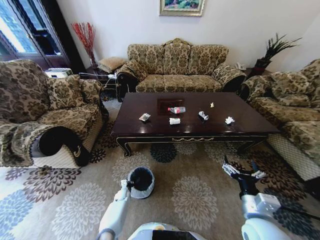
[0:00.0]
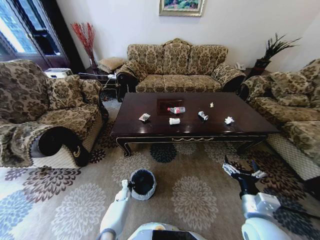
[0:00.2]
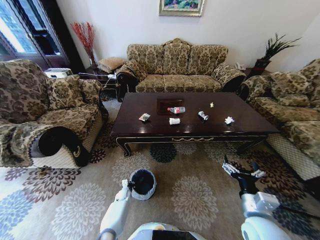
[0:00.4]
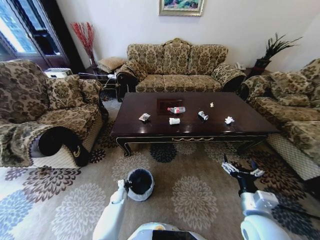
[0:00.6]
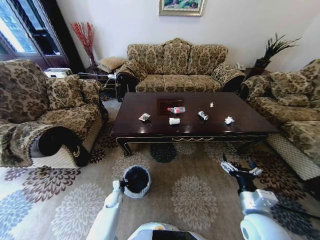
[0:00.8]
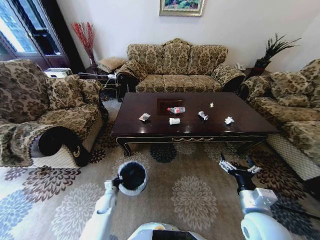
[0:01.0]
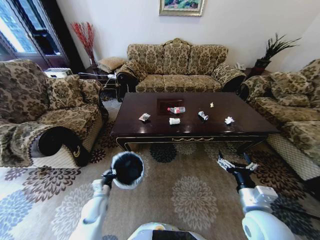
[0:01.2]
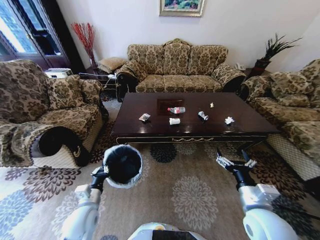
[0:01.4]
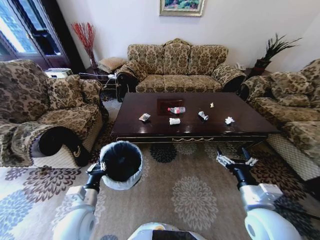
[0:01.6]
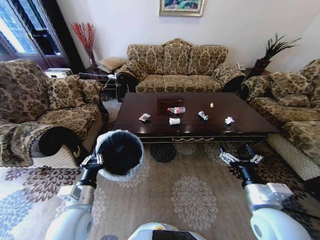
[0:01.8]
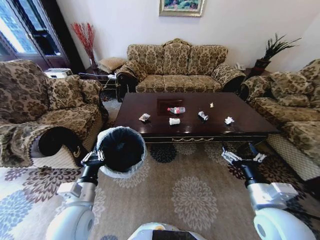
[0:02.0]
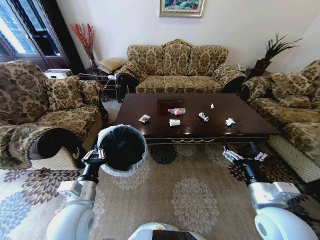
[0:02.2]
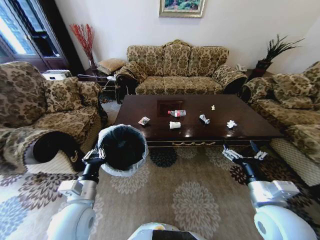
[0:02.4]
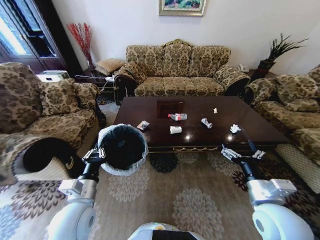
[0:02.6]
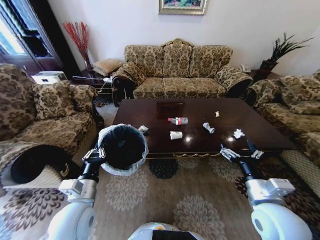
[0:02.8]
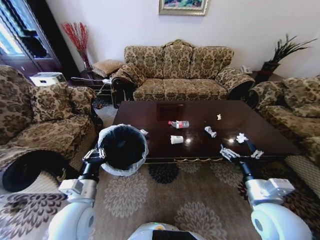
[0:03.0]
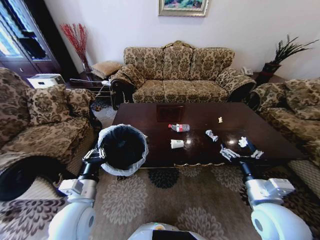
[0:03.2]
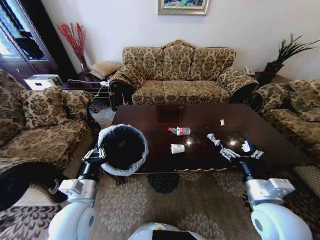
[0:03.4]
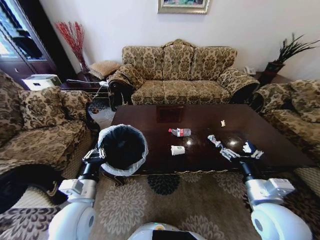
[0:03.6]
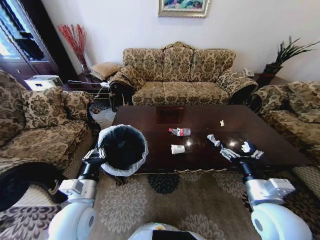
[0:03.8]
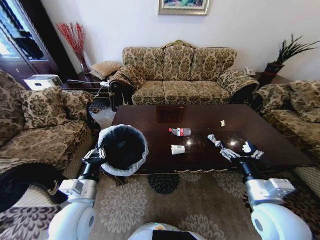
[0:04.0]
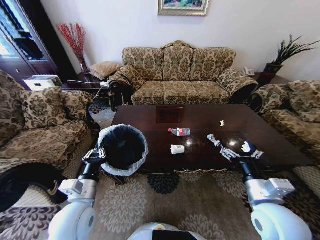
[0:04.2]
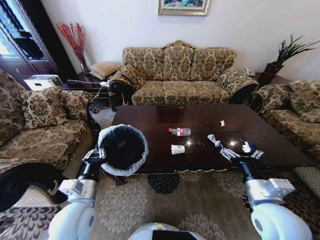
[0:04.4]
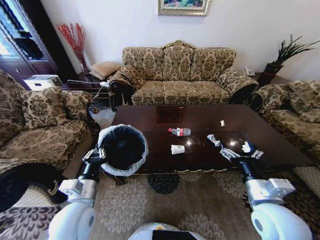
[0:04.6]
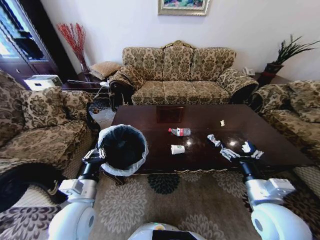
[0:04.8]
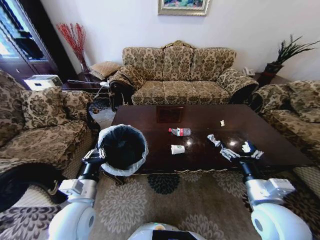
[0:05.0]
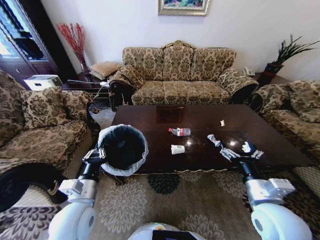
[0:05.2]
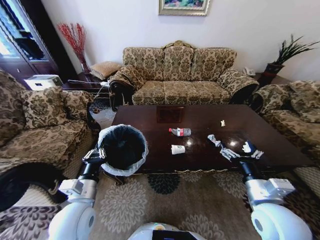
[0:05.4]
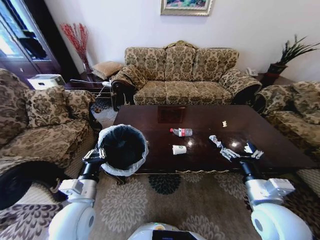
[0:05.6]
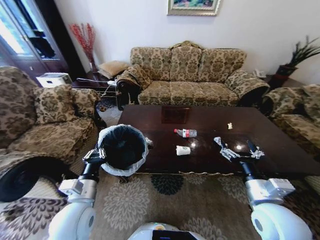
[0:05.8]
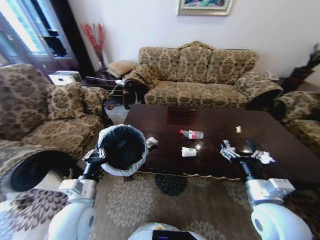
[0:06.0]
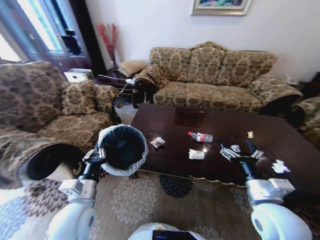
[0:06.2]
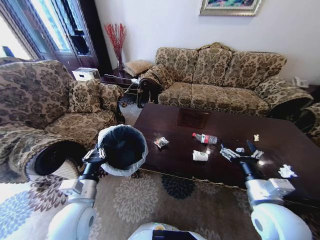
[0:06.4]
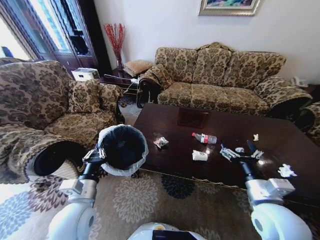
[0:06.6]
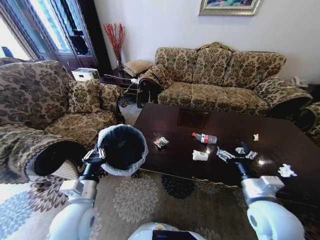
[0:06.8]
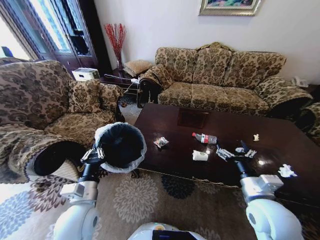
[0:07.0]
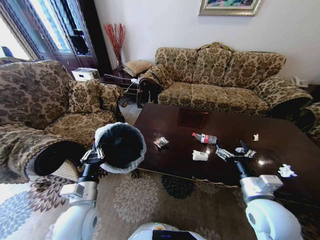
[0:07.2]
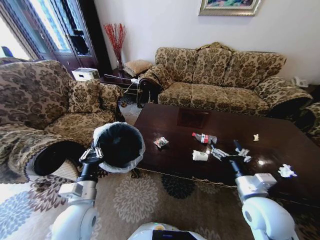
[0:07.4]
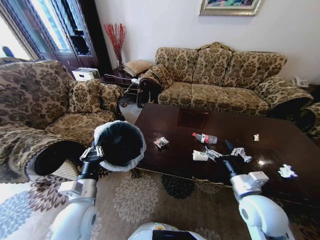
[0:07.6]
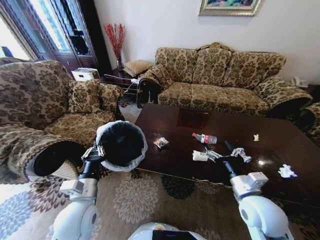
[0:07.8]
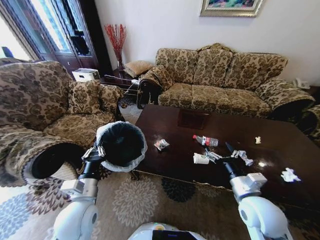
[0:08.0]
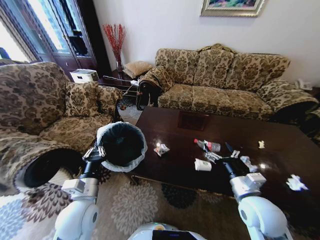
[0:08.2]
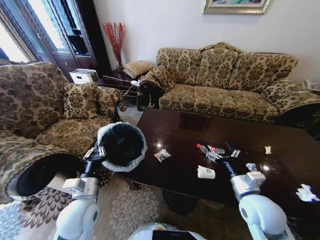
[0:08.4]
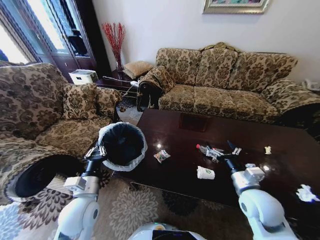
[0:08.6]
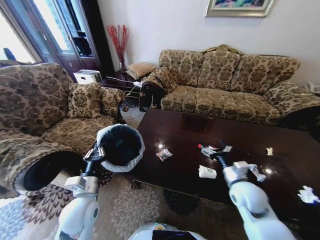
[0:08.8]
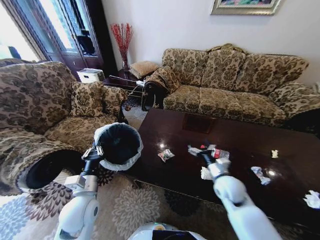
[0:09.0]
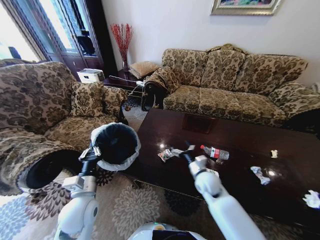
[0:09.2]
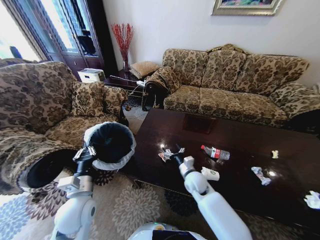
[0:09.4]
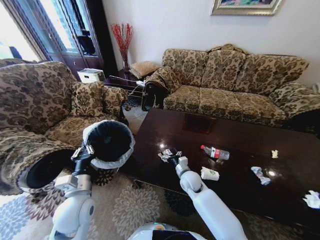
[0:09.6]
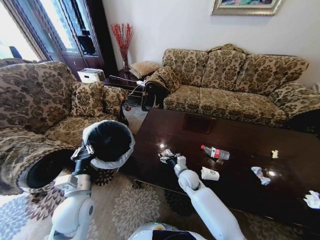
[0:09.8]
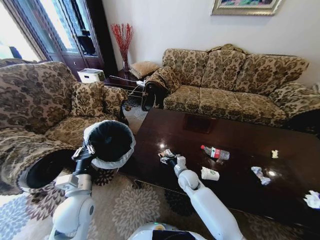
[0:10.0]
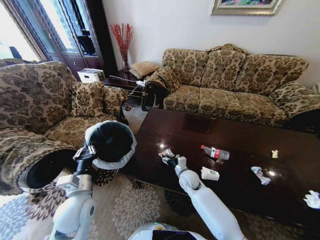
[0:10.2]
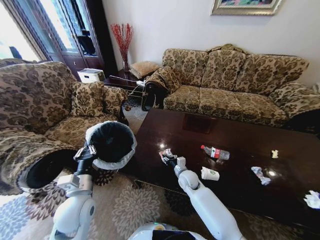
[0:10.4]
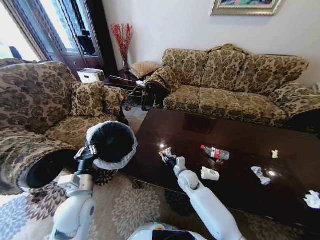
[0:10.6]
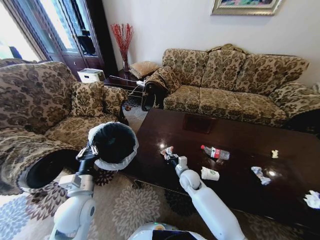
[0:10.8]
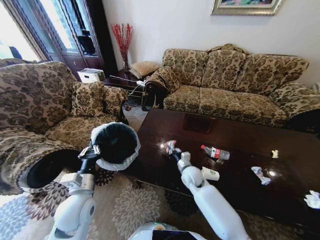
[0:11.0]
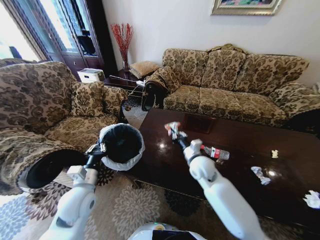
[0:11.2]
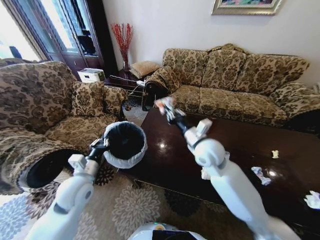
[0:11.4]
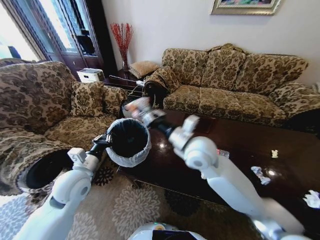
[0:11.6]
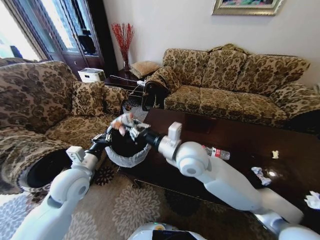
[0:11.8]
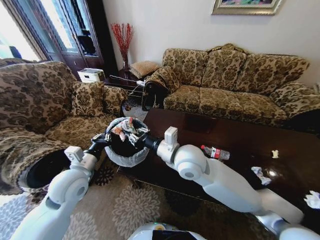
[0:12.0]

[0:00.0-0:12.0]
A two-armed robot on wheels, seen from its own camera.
Task of the whole recording: Move to the front of the table and place the trash on the table into the trash bin.
0:00.0 to 0:01.6: The left gripper travels upward and backward by roughly 40 cm.
0:01.6 to 0:03.0: The left gripper shifts some 5 cm upward.
0:07.6 to 0:09.0: The right gripper is displaced forward and downward by approximately 10 cm.
0:09.0 to 0:10.4: The right gripper heads to the left, downward and forward, covering roughly 20 cm, and closes its fingers.
0:10.4 to 0:12.0: The right gripper is displaced upward by roughly 25 cm, and closes; the left gripper travels upward and forward by about 10 cm.

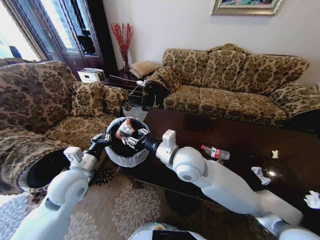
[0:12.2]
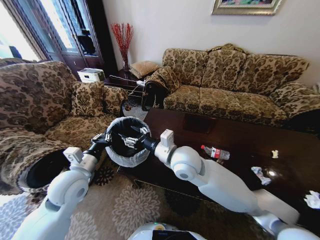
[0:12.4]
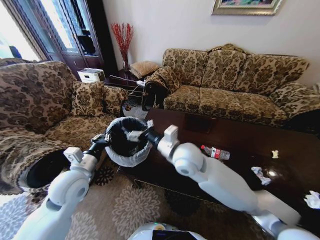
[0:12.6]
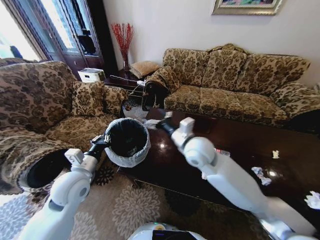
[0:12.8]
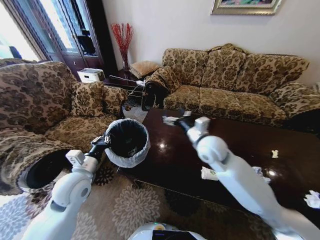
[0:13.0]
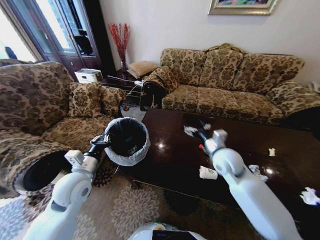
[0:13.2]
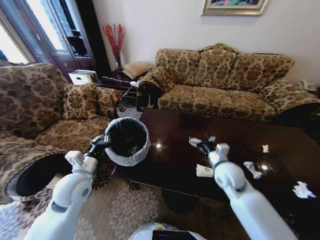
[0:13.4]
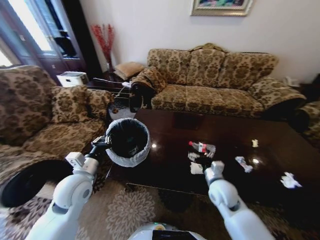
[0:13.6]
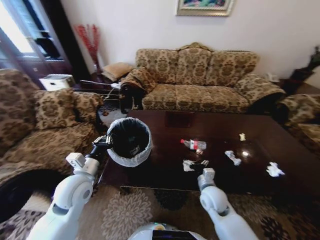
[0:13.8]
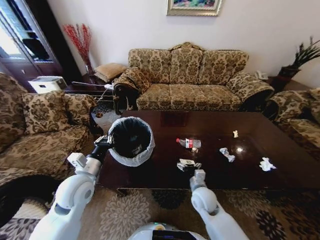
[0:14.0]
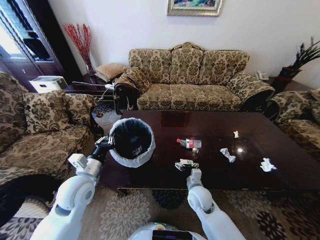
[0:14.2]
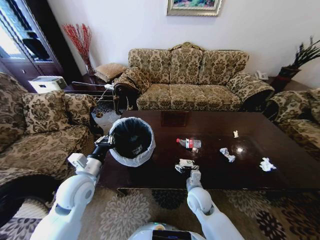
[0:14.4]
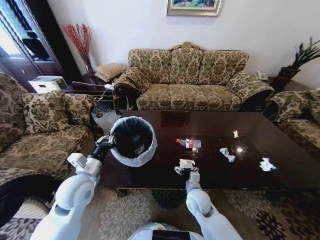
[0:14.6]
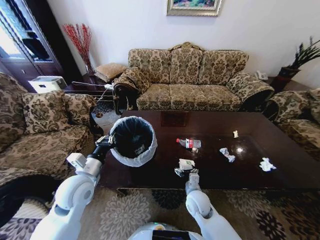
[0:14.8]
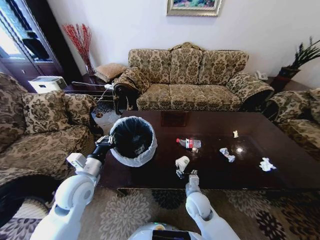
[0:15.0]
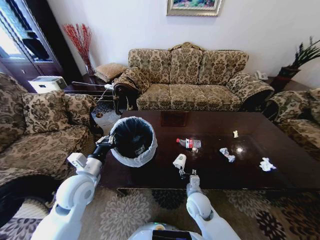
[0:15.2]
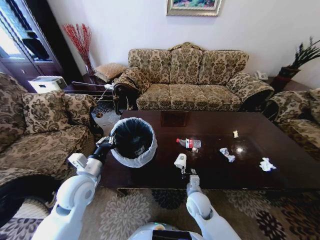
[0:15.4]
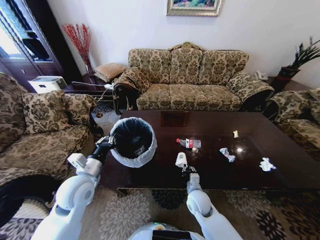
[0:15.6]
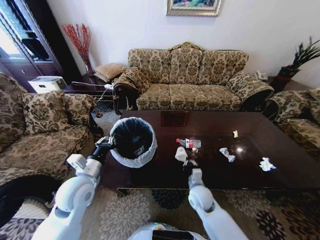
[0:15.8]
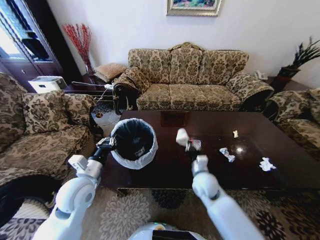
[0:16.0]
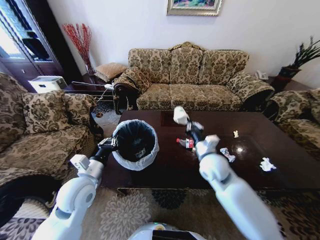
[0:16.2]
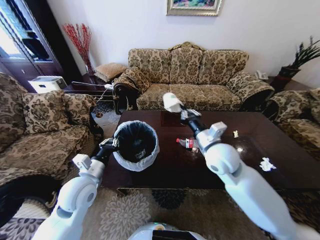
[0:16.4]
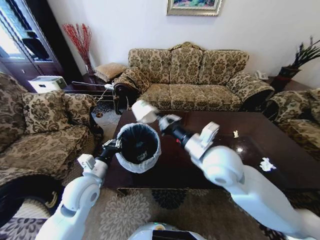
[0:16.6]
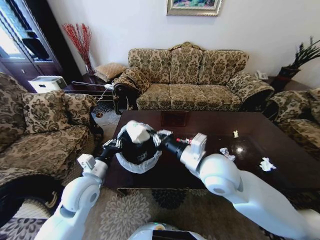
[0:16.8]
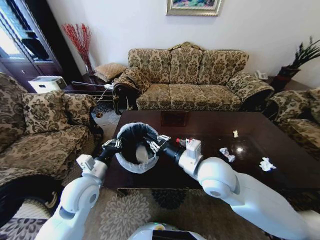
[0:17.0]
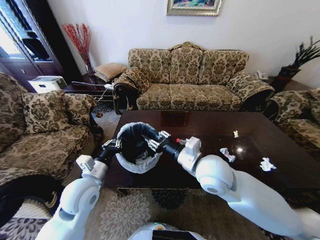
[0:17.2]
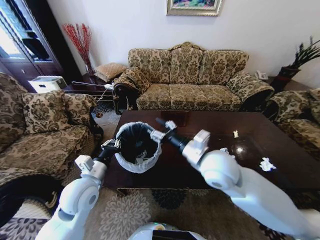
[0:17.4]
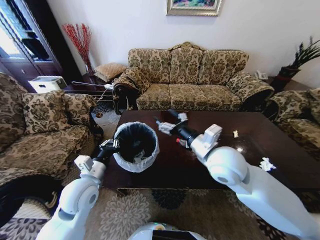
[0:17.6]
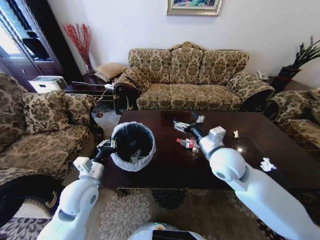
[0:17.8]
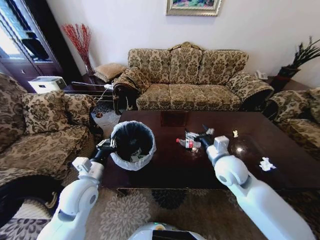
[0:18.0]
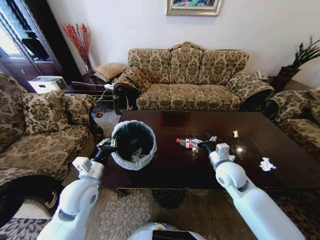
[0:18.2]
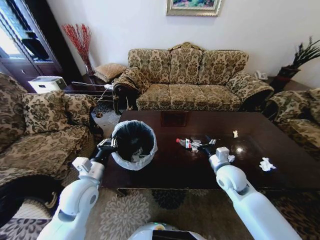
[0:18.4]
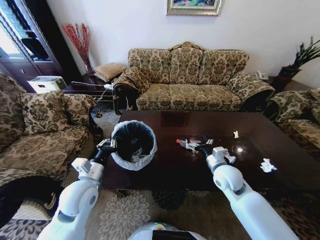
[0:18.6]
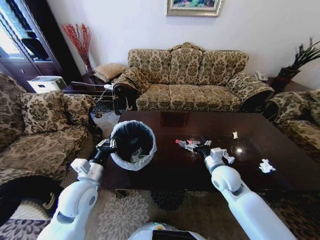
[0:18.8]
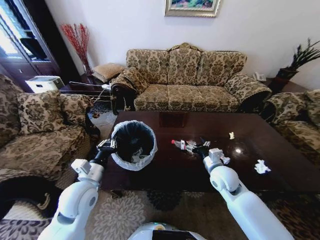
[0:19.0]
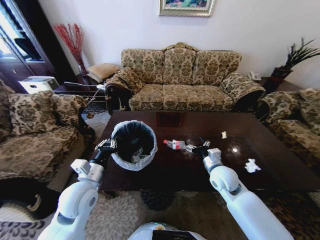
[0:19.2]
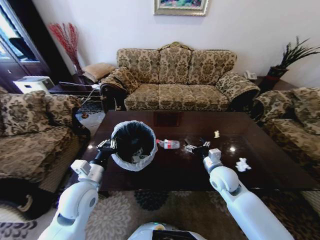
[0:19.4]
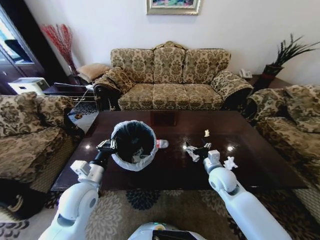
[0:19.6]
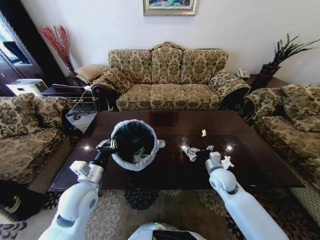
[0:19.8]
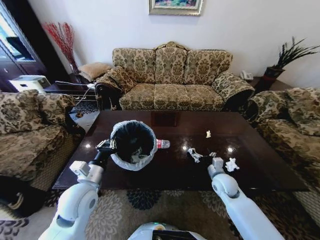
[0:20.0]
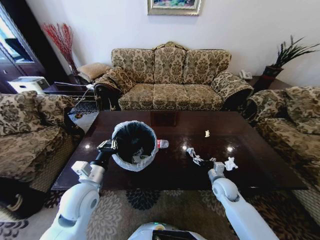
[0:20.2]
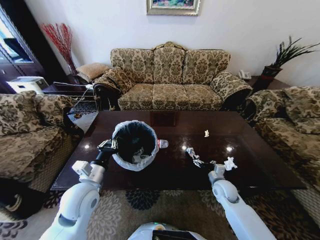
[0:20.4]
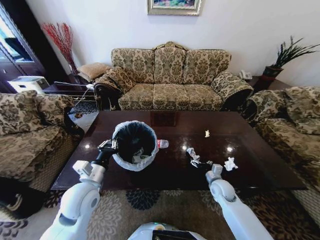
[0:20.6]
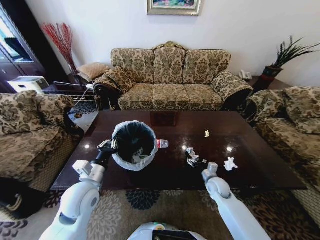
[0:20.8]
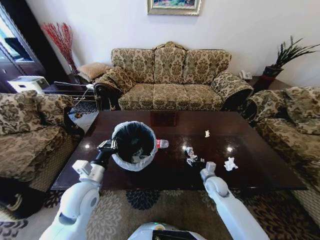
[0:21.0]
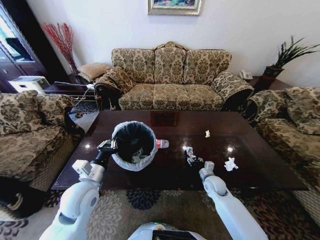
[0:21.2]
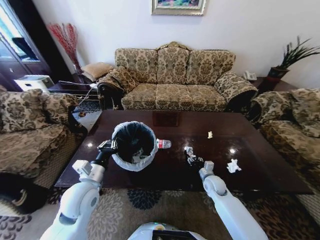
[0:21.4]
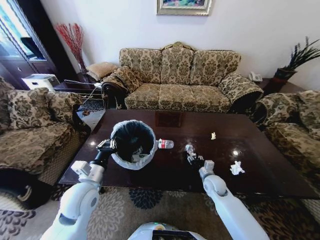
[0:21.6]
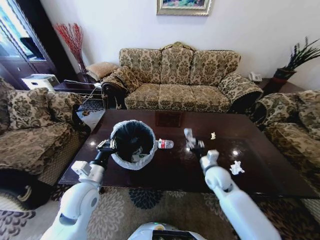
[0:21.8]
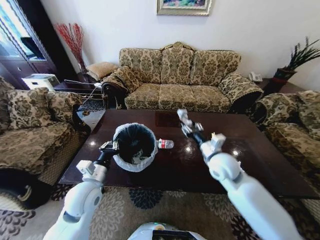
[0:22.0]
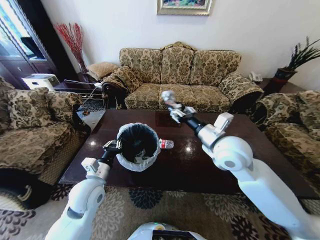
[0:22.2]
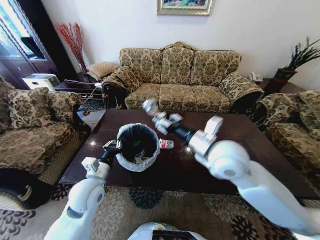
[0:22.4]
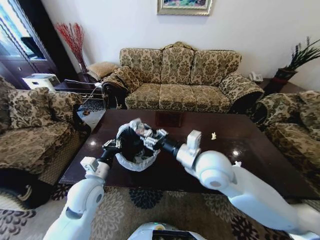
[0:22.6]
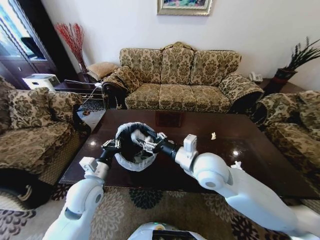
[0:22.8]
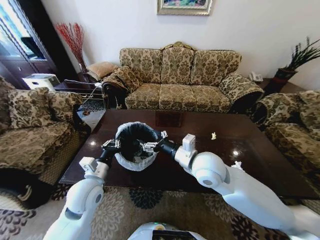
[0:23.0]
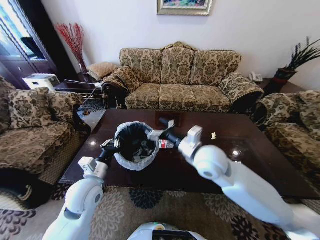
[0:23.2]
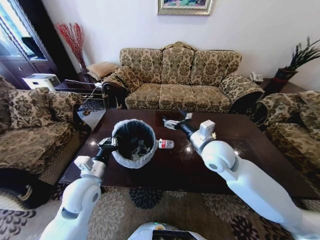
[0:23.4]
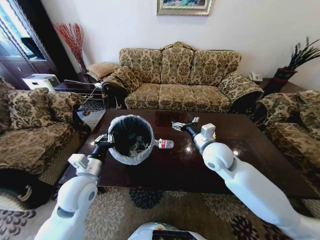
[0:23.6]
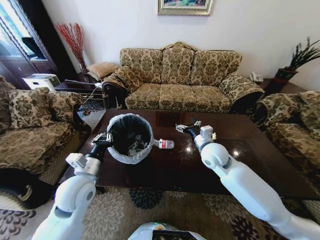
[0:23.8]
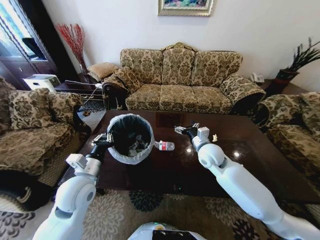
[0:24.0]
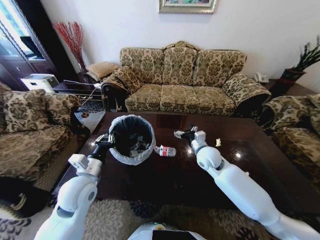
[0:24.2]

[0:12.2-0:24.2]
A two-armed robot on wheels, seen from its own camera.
Task of the whole recording: Move to the front of the table and place the trash on the table into the trash bin.
0:12.2 to 0:13.8: The right gripper heads downward and to the right, covering roughly 25 cm, and opens its fingers.
0:13.8 to 0:15.2: The right gripper travels to the left by about 5 cm, and closes.
0:15.2 to 0:16.6: The right gripper is displaced upward by approximately 30 cm, and closes up.
0:16.6 to 0:18.2: The right gripper goes some 20 cm downward and to the right, and opens up.
0:18.2 to 0:19.8: The right gripper travels downward by about 5 cm.
0:19.8 to 0:21.2: The right gripper goes roughly 10 cm downward, and closes.
0:21.2 to 0:22.6: The right gripper moves upward and to the left, roughly 30 cm.
0:22.6 to 0:24.2: The right gripper is displaced downward, forward and to the right by some 15 cm, and opens up.
